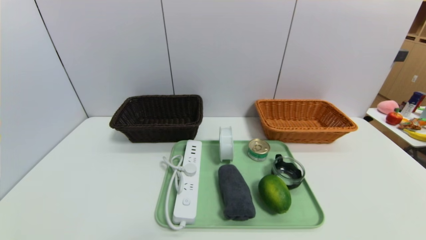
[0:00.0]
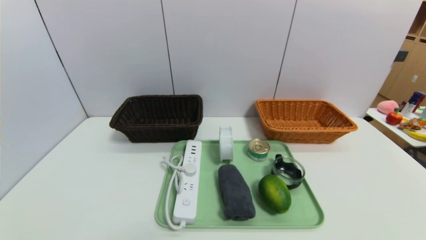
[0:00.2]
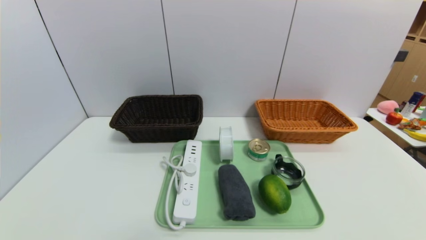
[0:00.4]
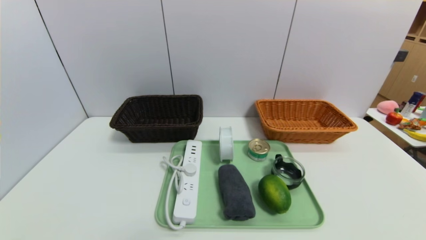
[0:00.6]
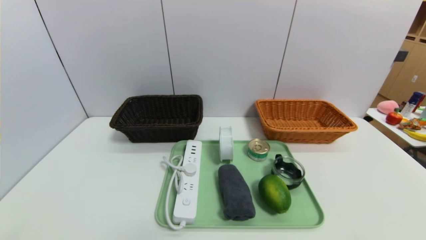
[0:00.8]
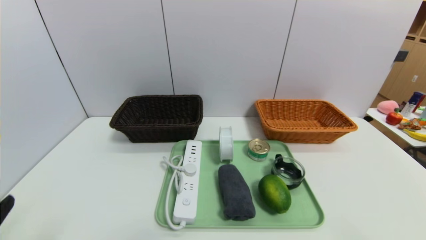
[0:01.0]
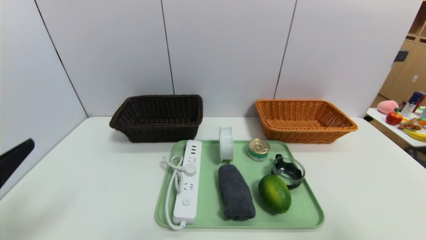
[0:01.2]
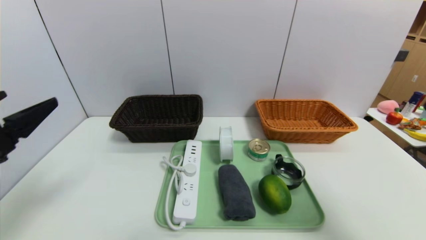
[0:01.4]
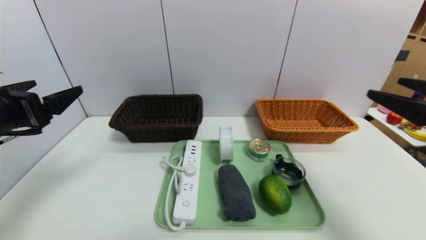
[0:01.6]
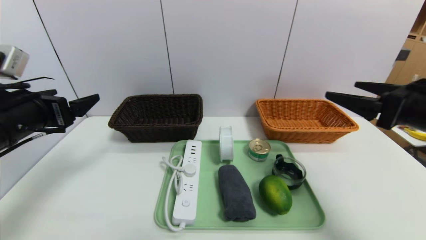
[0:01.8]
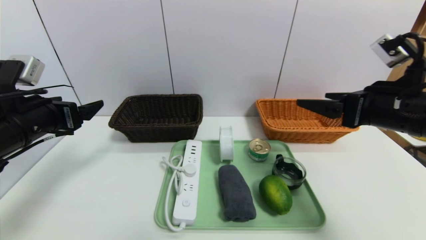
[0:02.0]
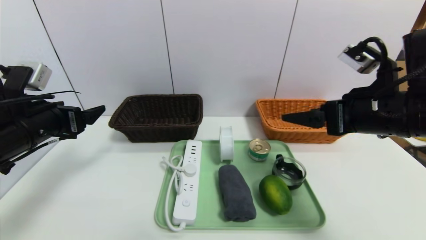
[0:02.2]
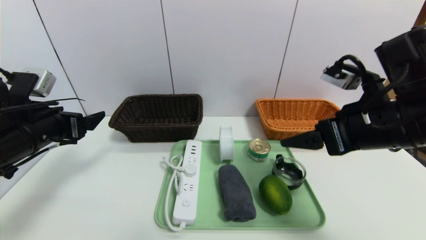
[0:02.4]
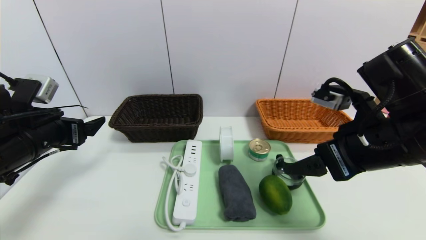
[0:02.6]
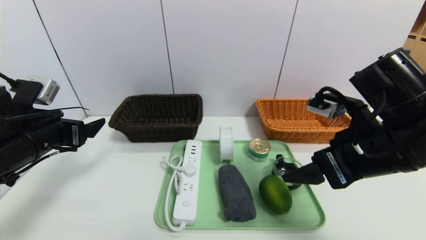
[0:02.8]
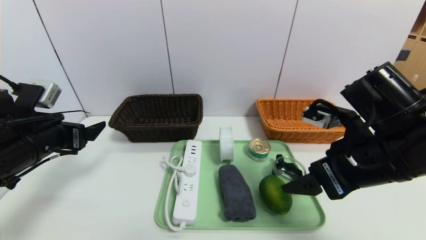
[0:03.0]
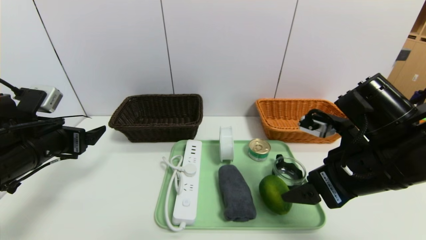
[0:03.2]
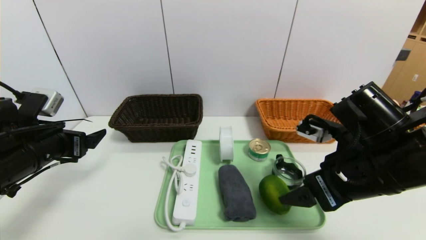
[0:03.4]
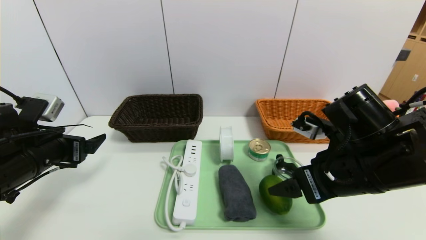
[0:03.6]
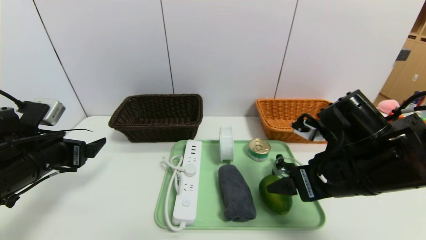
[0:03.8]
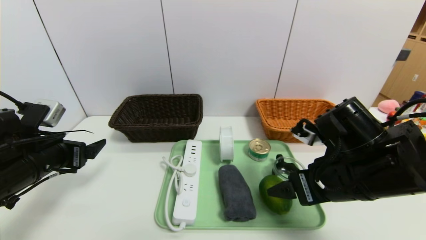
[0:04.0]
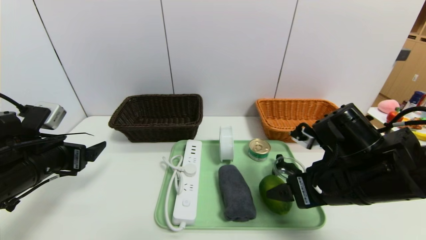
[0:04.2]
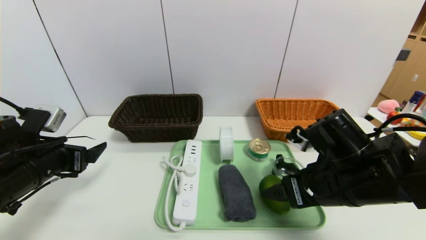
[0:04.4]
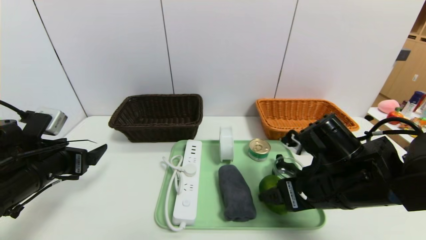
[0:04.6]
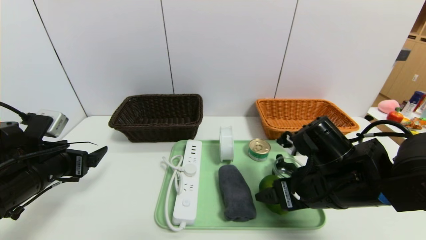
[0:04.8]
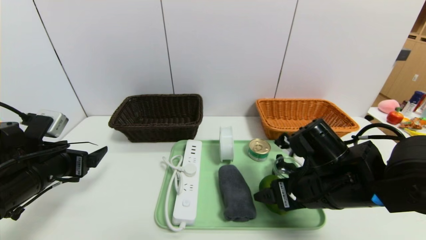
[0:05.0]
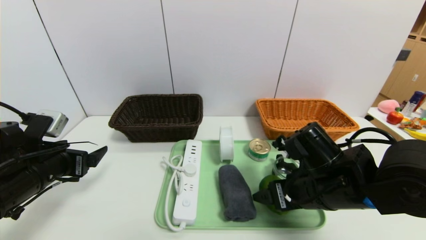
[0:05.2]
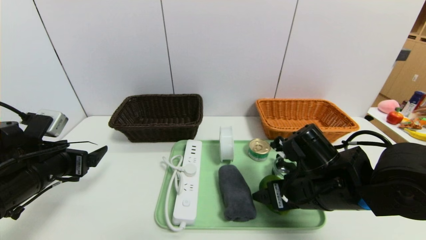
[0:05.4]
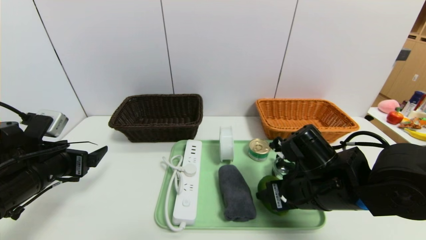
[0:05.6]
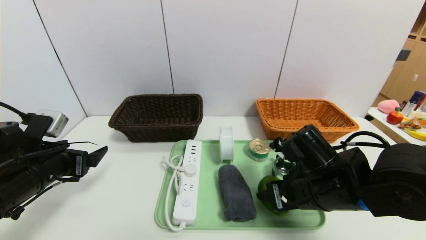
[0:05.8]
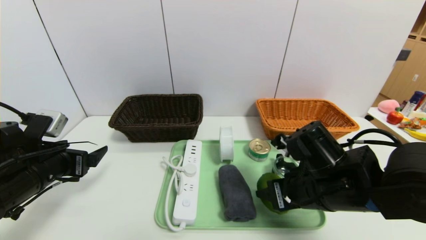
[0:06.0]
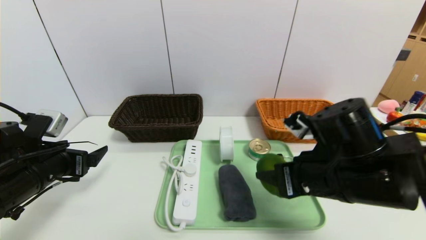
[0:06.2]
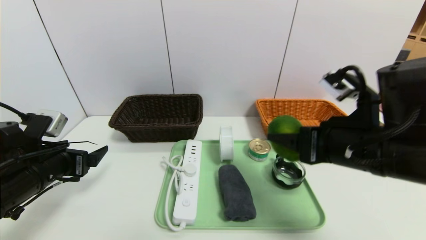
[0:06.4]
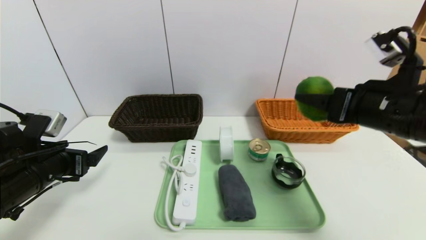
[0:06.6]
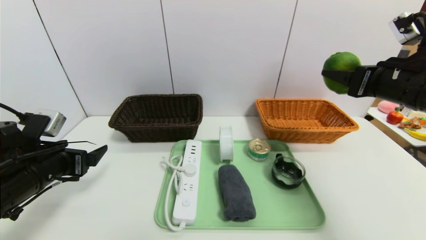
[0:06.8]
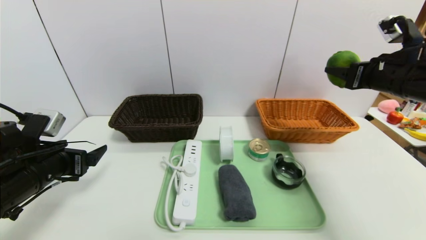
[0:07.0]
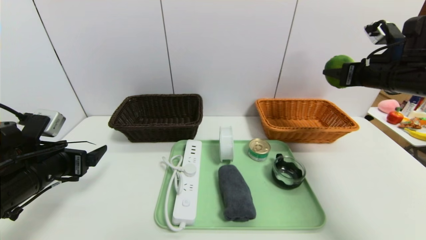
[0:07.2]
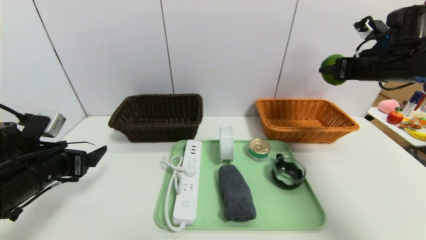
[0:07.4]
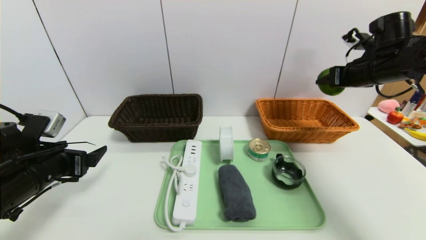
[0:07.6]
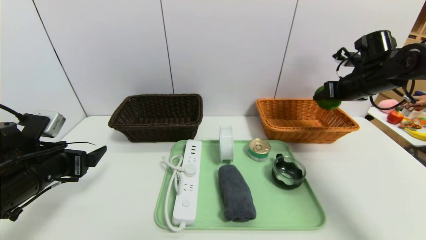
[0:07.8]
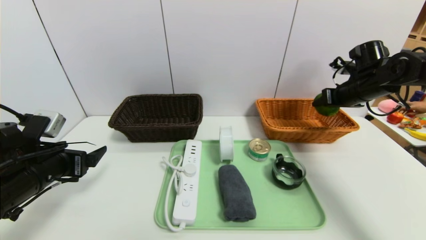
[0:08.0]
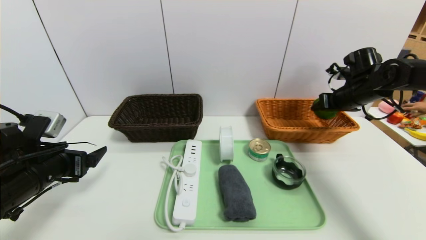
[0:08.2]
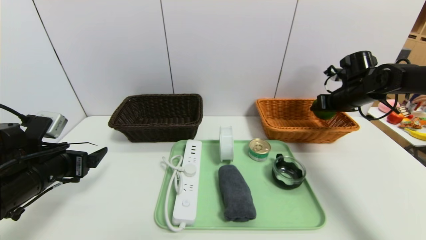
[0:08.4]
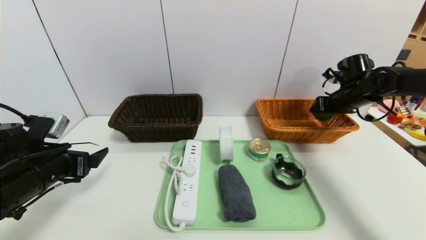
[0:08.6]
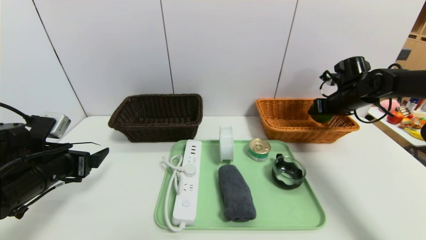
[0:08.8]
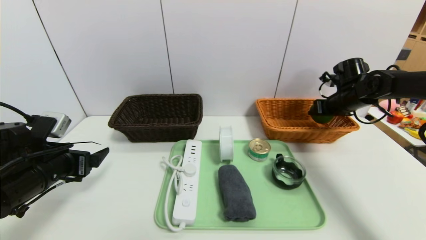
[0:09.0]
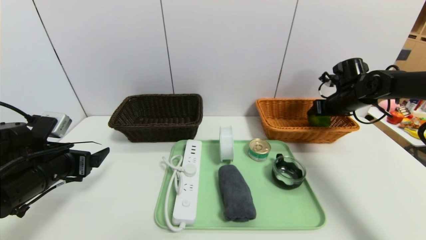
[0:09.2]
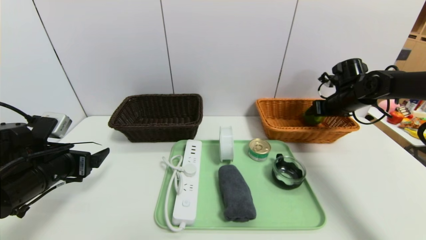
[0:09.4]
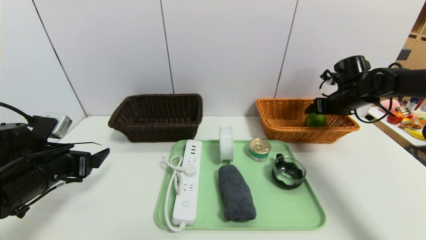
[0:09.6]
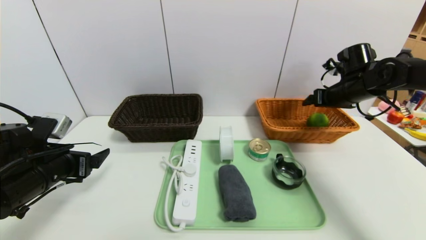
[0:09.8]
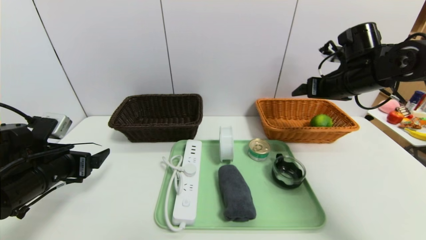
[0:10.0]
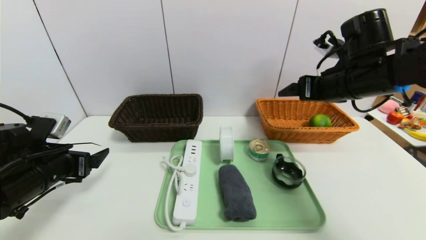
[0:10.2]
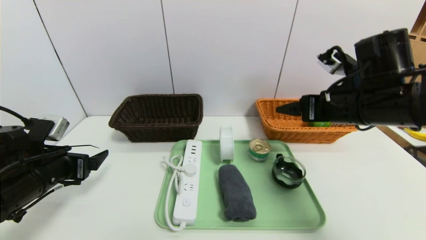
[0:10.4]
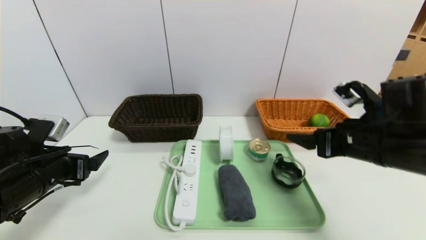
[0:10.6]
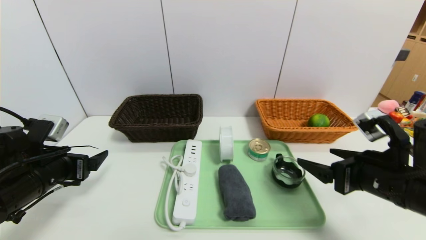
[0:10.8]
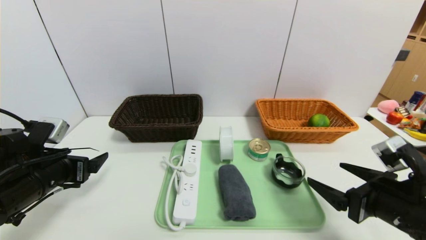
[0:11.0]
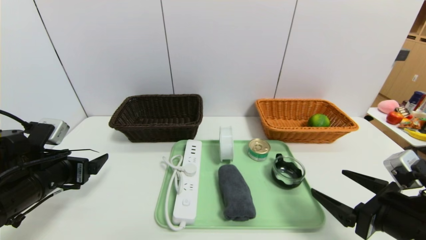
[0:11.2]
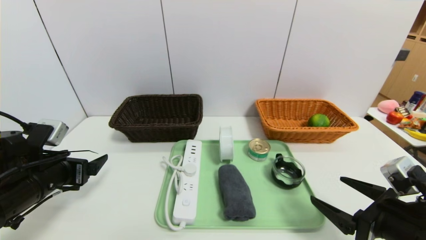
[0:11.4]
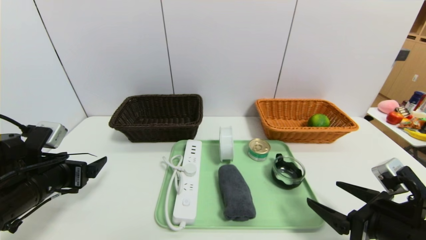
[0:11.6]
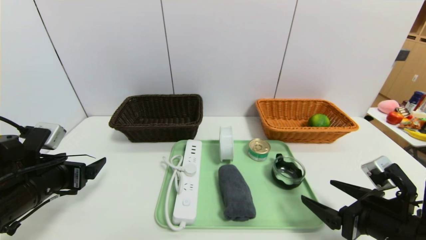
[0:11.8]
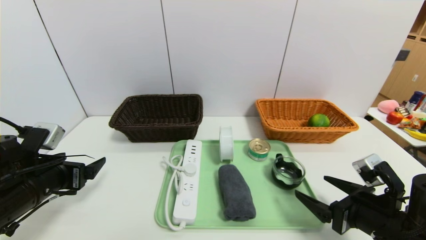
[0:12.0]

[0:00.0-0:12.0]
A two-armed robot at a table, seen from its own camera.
Task of the whole recording: place the food in the right basket with the right gripper, and place the non food items in the left basket with the left gripper.
Step, 0:00.0 to 0:09.4: Grasp the green lemon and put it in the right basket.
0:00.0 to 0:01.6: Both grippers travel together upward and forward, roughly 25 cm.
0:01.6 to 0:03.0: The left gripper shifts approximately 10 cm downward and forward; the right gripper heads to the left, covering about 10 cm.
0:03.0 to 0:04.4: The right gripper goes about 5 cm downward.
0:04.4 to 0:06.0: The right gripper closes.
0:06.0 to 0:07.6: The right gripper travels forward, to the right and upward by approximately 30 cm.
0:07.6 to 0:09.0: The right gripper travels downward and forward by some 10 cm.
0:09.0 to 0:10.4: The right gripper goes roughly 20 cm backward and to the left, and opens its fingers.
0:10.4 to 0:12.0: The right gripper shifts some 20 cm downward and backward.

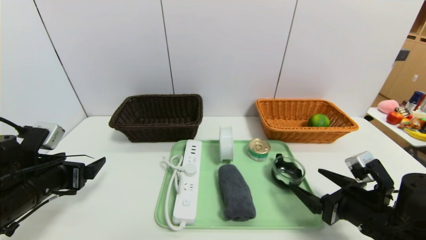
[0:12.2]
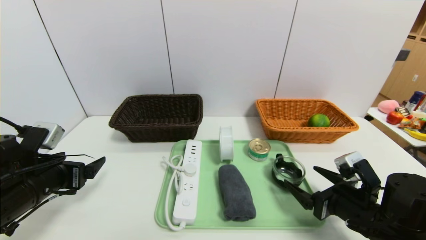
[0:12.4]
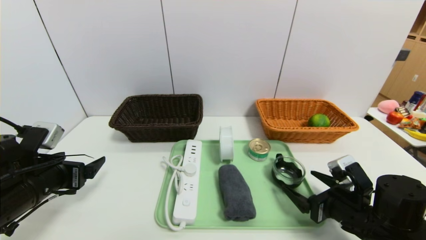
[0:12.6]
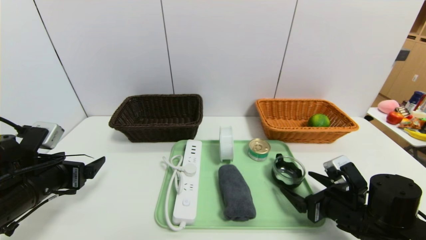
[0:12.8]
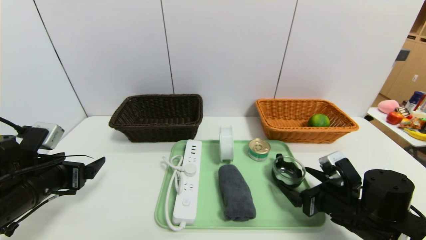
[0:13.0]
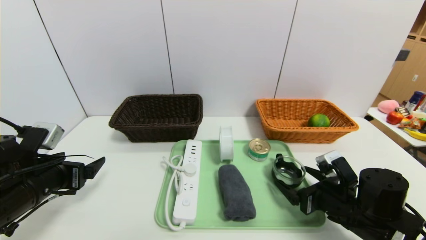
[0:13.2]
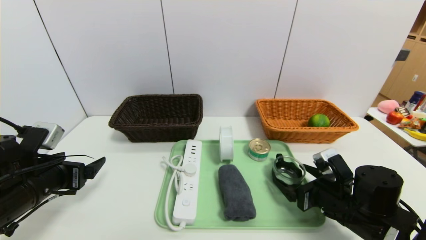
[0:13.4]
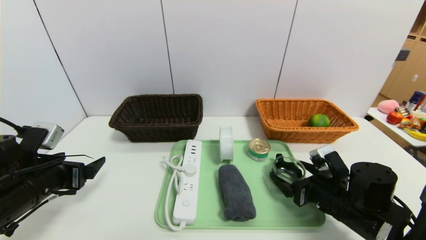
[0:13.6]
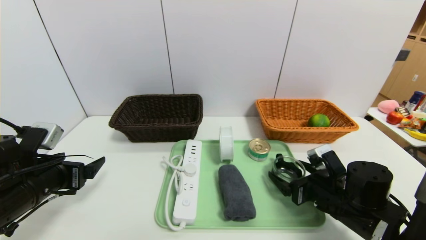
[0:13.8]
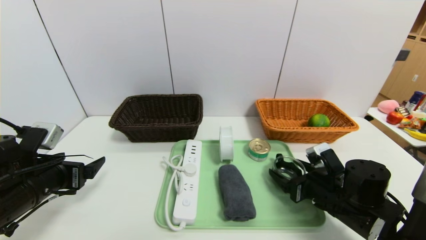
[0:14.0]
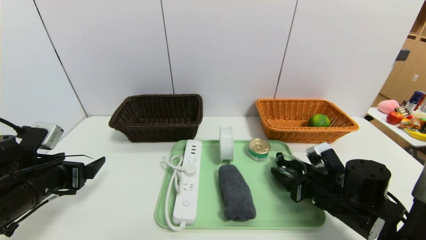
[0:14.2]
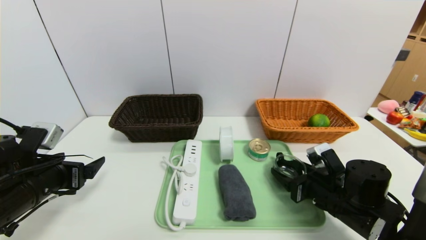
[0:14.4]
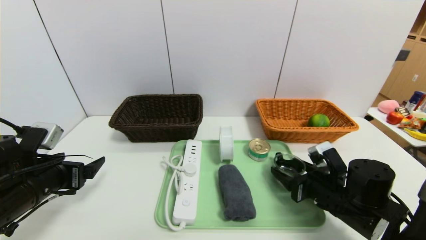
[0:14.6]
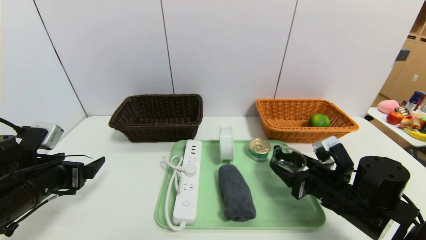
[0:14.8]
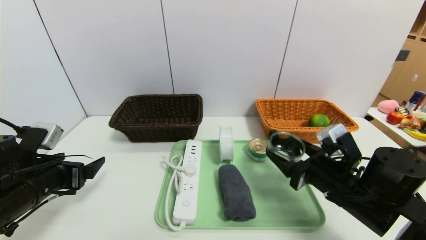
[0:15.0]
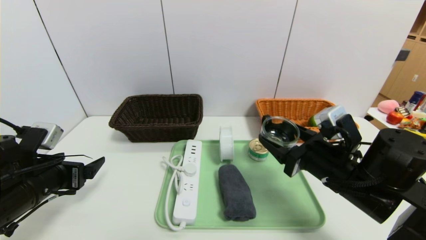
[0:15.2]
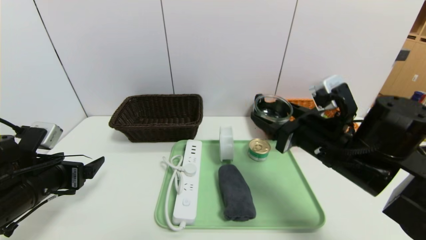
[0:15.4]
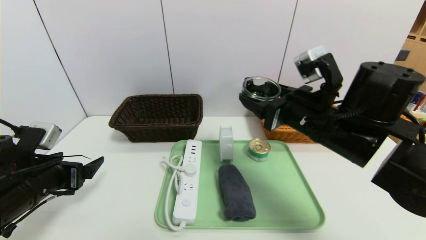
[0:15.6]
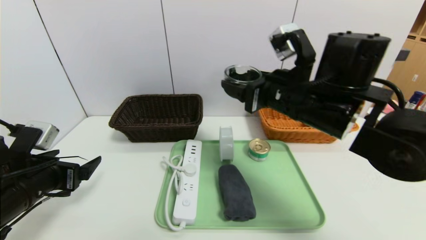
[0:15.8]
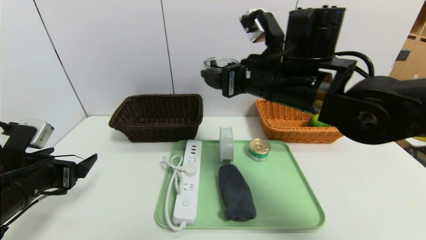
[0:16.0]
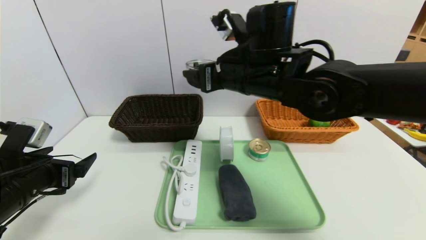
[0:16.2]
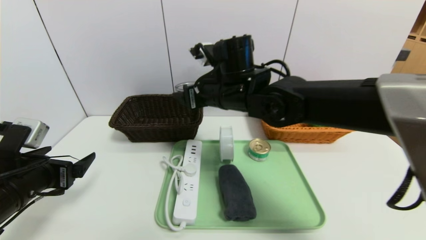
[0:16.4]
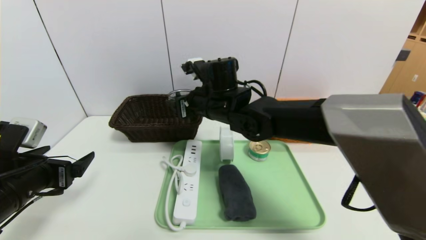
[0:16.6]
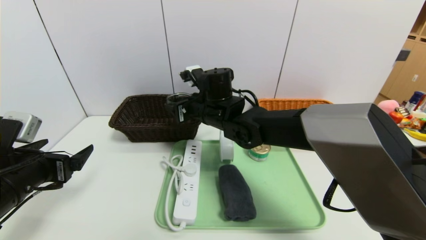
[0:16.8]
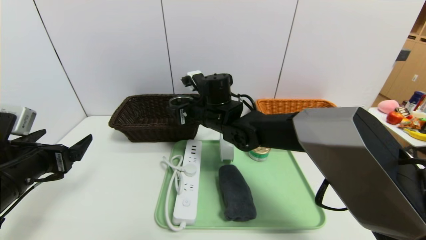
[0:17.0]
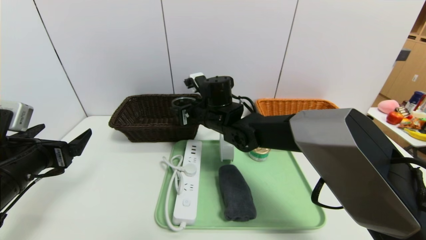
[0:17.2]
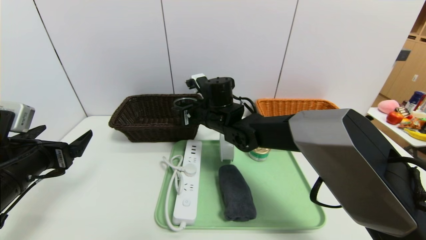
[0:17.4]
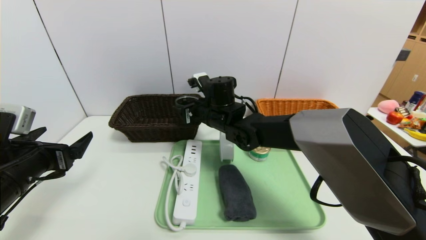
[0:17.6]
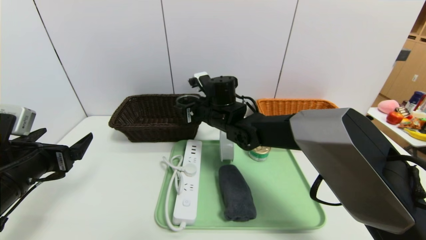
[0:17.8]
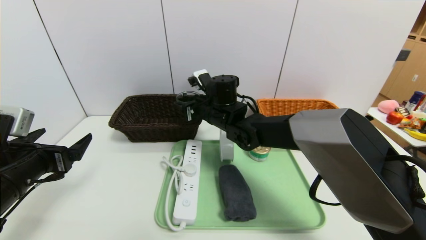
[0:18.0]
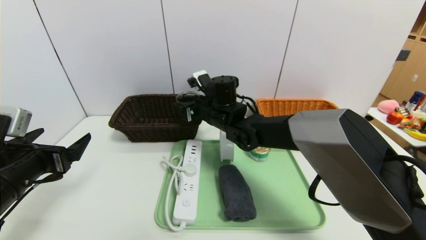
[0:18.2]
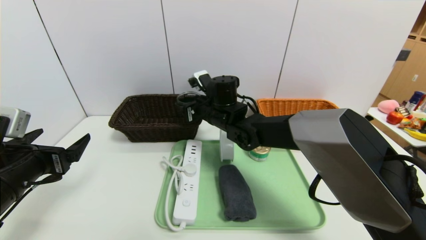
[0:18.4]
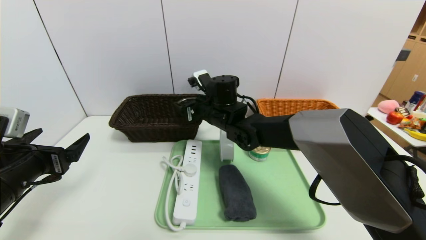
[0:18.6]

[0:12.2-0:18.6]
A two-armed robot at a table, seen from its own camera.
Task of the whole recording: place the food in the right basket with the right gripper, and place the non food items in the left basket with the left gripper.
0:12.2 to 0:13.8: The right gripper shifts some 5 cm forward.
0:13.8 to 0:15.4: The right gripper moves upward, some 15 cm.
0:15.4 to 0:17.0: The right gripper goes approximately 25 cm to the left and forward.
0:17.0 to 0:18.6: The grippers stay close to where they were, moving slightly.
